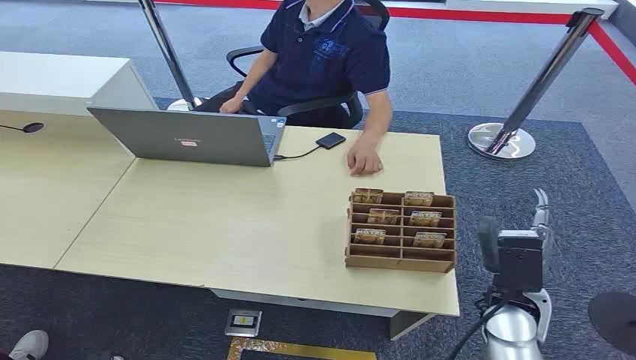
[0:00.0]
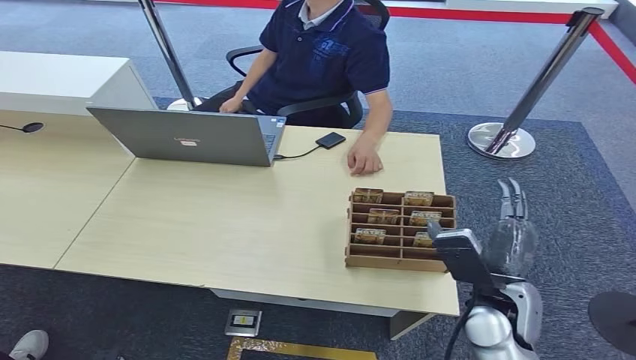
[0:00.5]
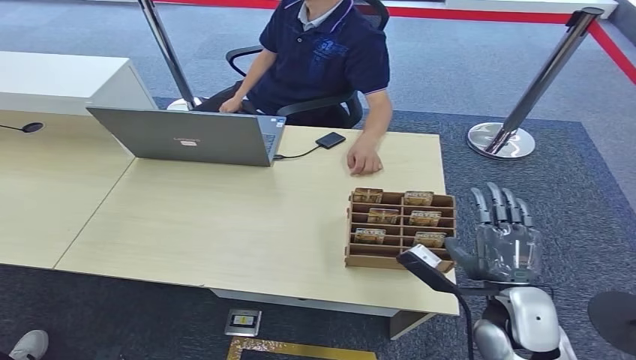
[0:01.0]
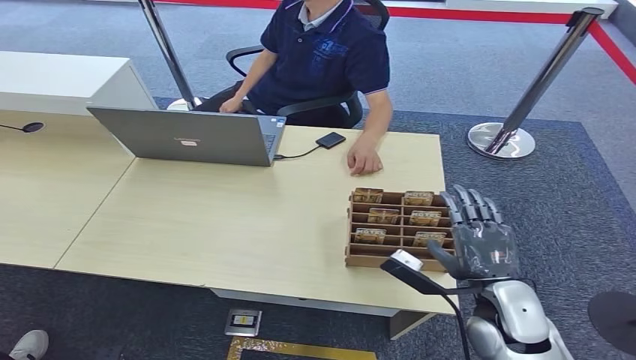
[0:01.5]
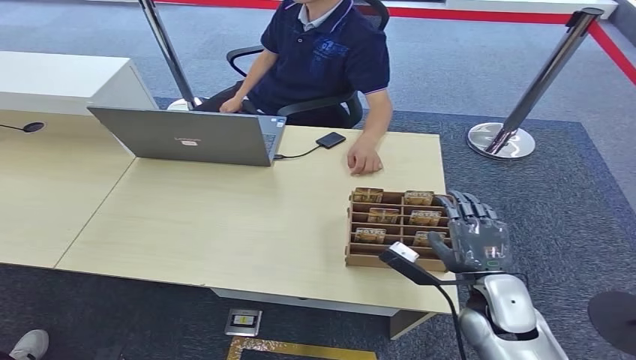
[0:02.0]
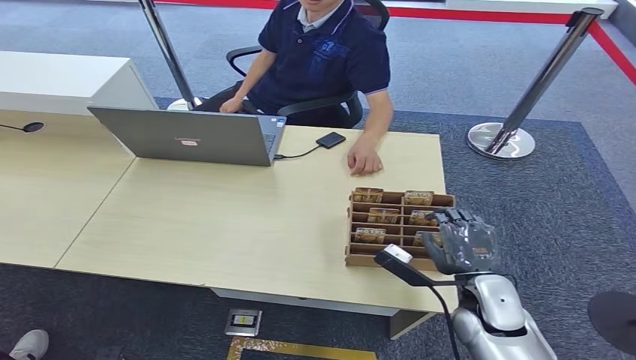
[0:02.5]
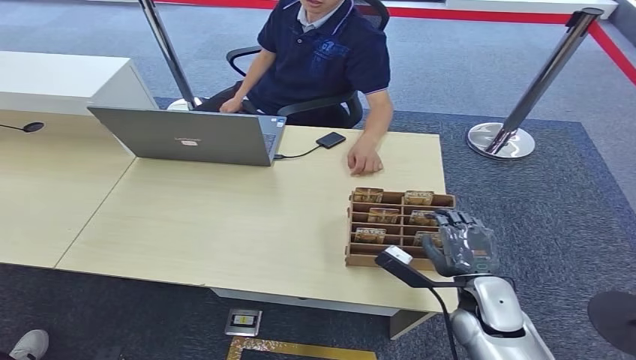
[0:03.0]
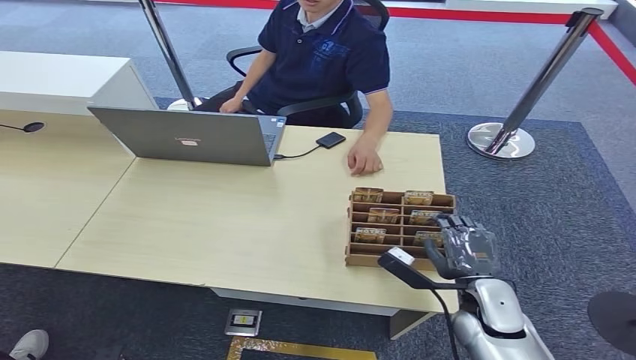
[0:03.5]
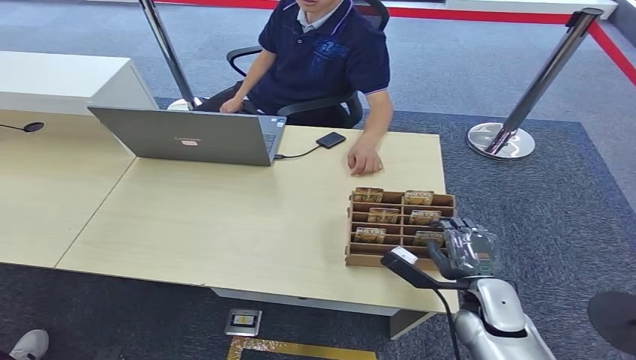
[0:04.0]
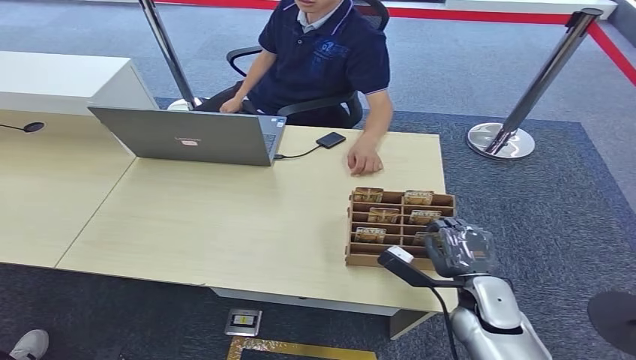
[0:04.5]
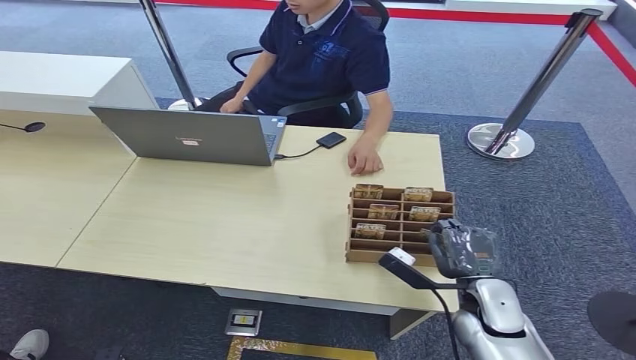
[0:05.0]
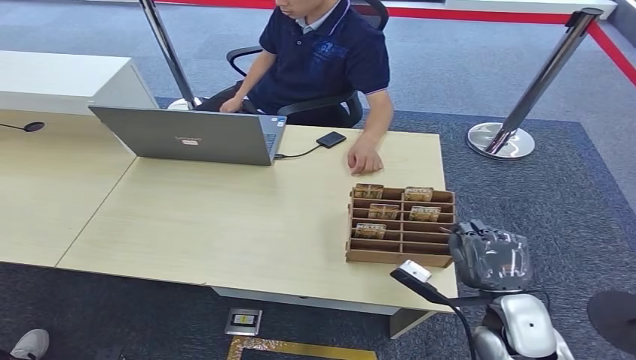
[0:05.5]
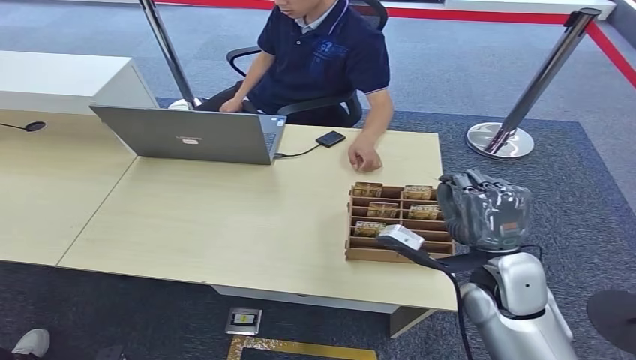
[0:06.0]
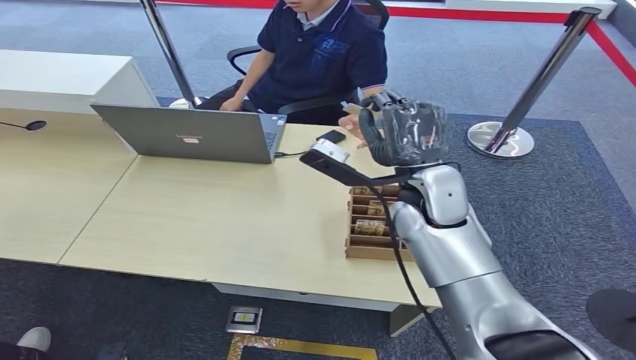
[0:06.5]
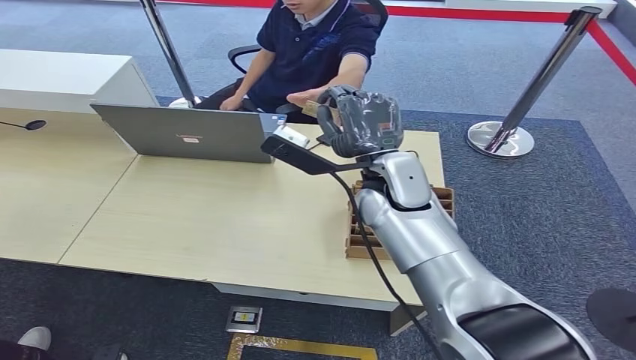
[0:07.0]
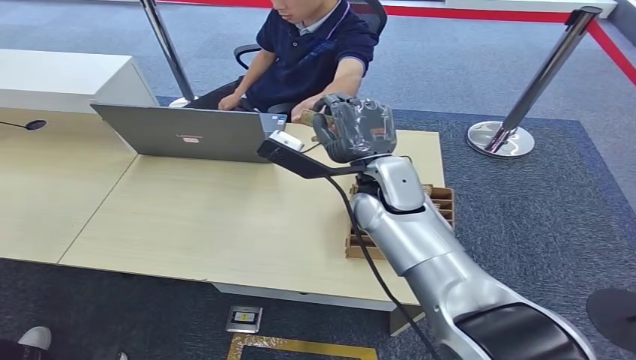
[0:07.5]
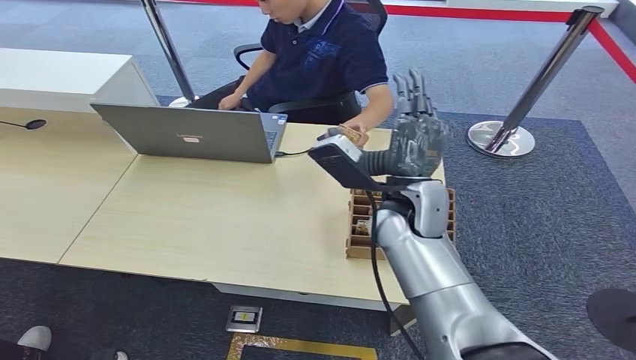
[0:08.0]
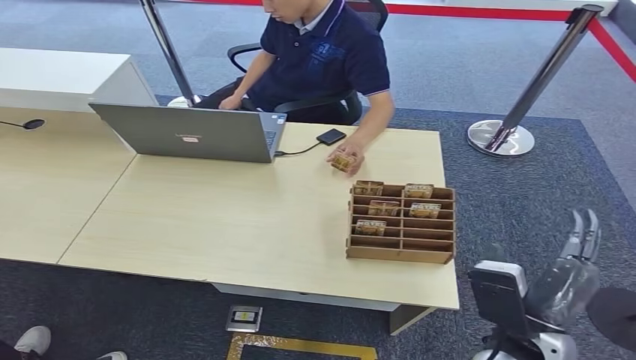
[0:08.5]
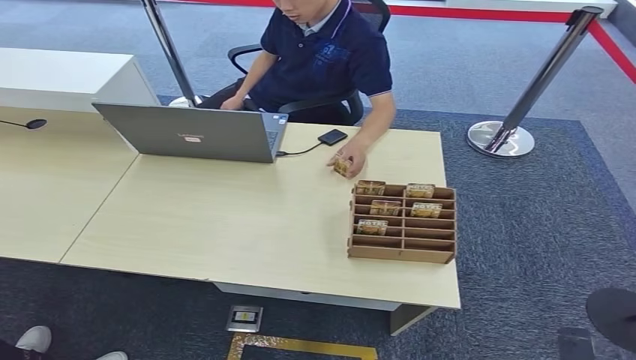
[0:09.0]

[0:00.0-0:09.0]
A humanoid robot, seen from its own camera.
Step, 0:00.0 to 0:05.5: Pick up the room card from the card holder.
Step, 0:06.0 to 0:09.0: Hand the room card to the target.
0:02.0 to 0:04.5: There are only small adjustments of the hands.
0:07.0 to 0:09.0: The right hand is displaced backward, downward and to the right by some 50 cm.
